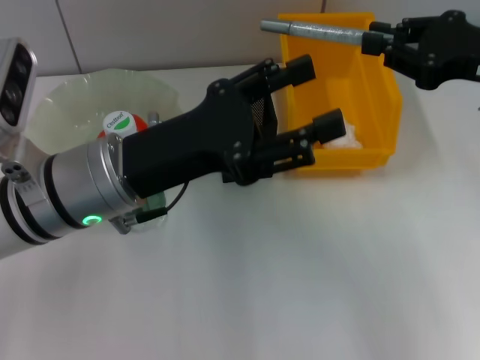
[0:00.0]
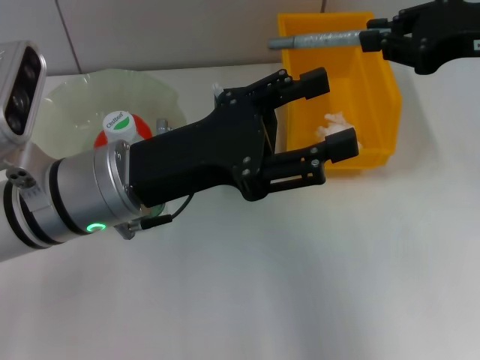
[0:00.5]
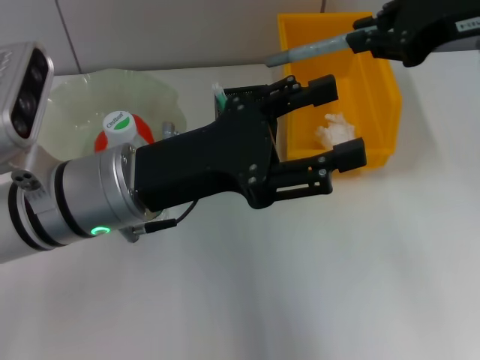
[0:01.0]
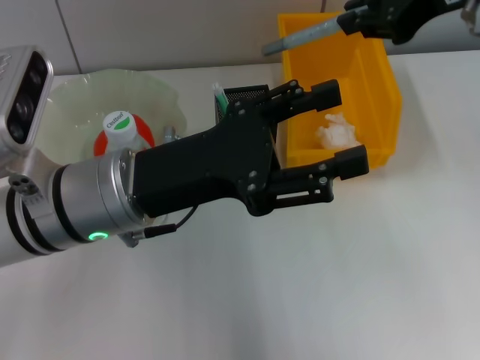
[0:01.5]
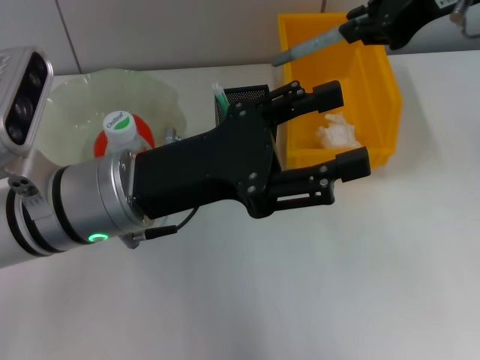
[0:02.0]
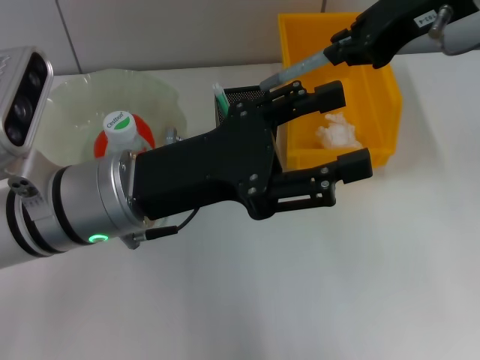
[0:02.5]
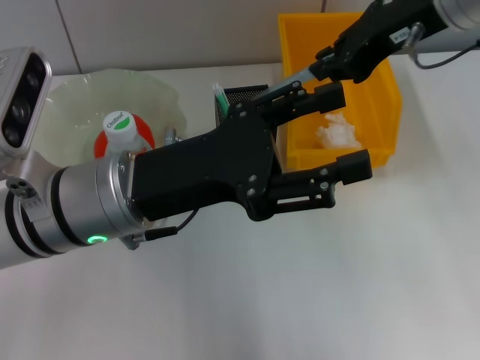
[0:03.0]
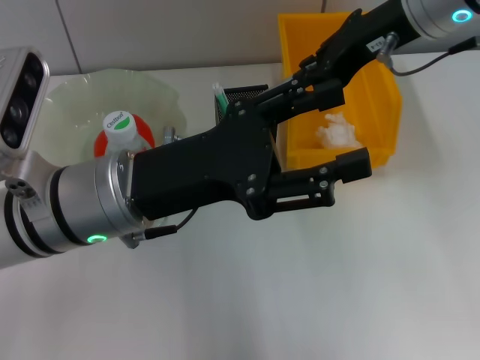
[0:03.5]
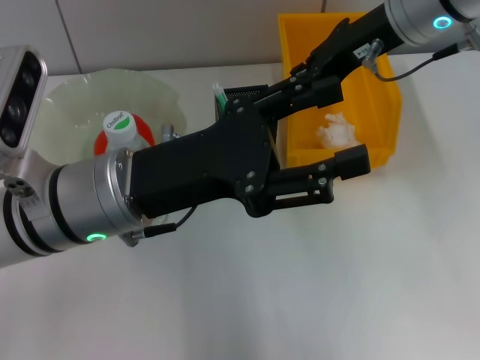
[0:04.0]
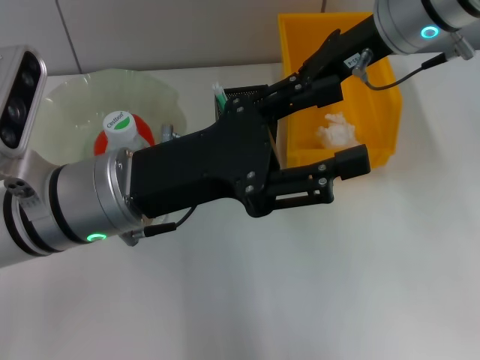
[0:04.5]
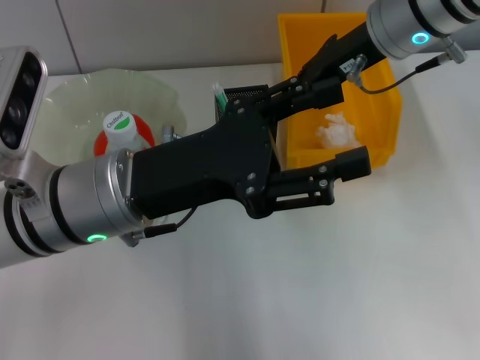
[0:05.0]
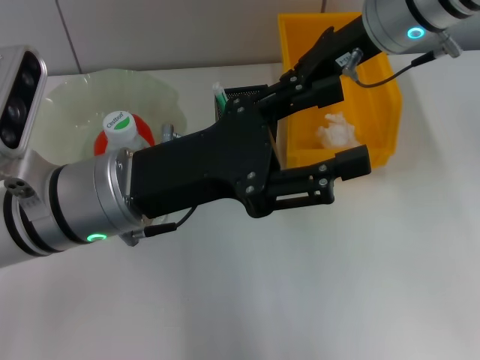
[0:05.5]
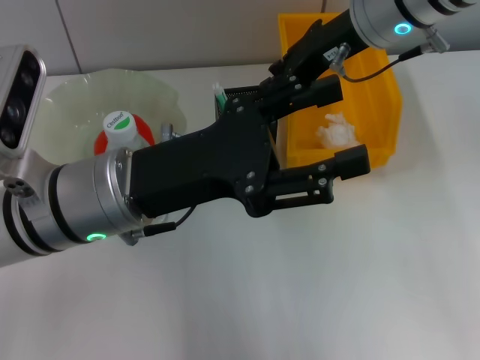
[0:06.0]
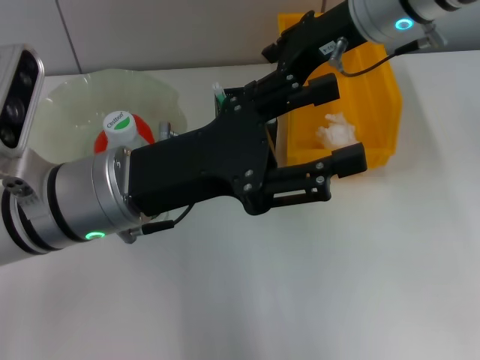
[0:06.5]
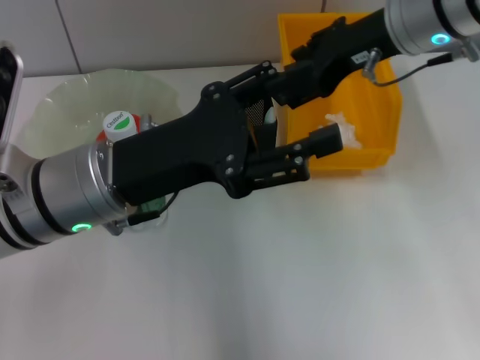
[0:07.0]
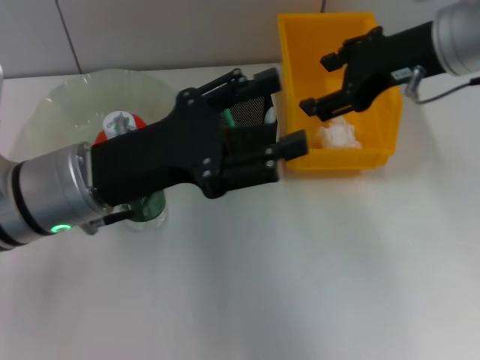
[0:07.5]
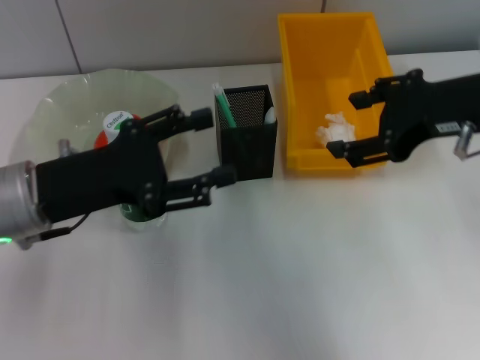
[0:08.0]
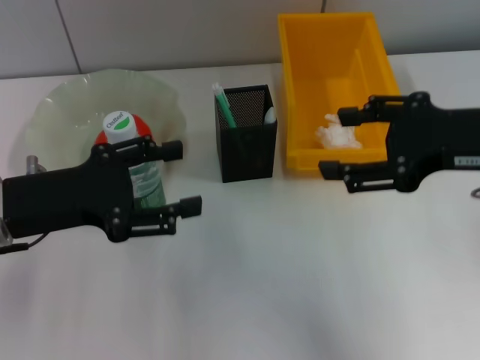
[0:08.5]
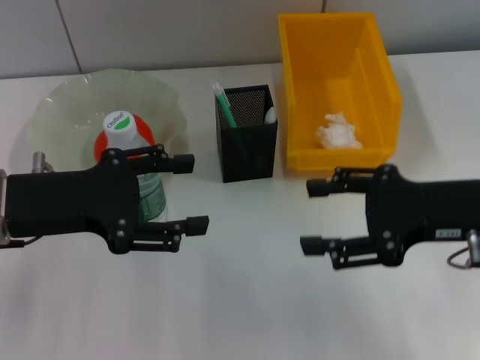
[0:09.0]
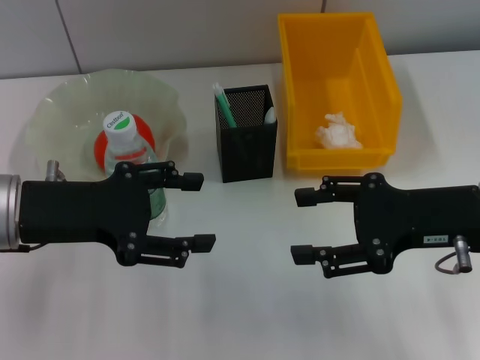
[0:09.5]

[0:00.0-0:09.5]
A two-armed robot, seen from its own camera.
Step, 0.0 to 5.0 s: Place the gray glue into the pen holder with the right hand.
0.0 to 2.0 s: The right gripper travels upward and to the left by roughly 15 cm.
2.0 to 4.0 s: The right gripper shifts approximately 5 cm downward.
4.0 to 5.5 s: The grippers make only small movements.
5.5 to 7.5 s: The right gripper travels backward by approximately 5 cm, and opens its fingers.
7.5 to 9.5 s: The left gripper heads to the left, covering some 5 cm, while the right gripper goes some 15 cm backward and downward.

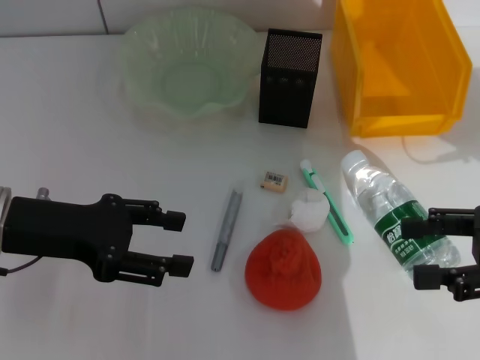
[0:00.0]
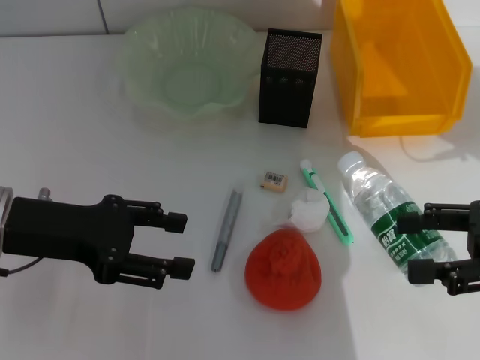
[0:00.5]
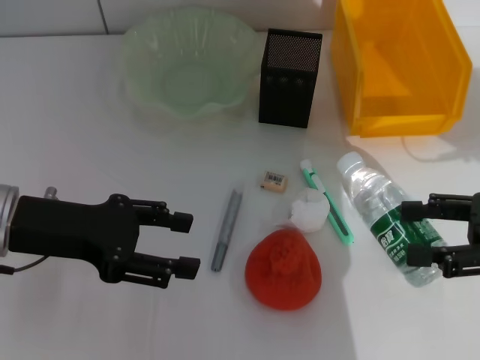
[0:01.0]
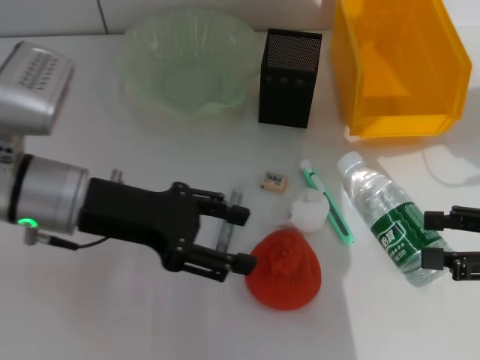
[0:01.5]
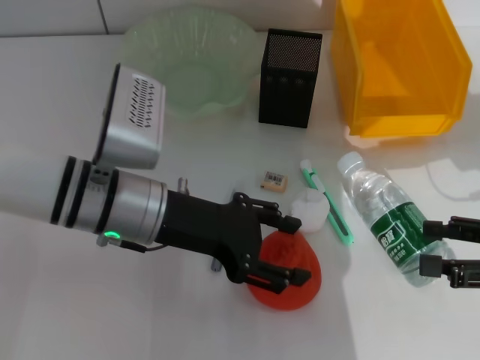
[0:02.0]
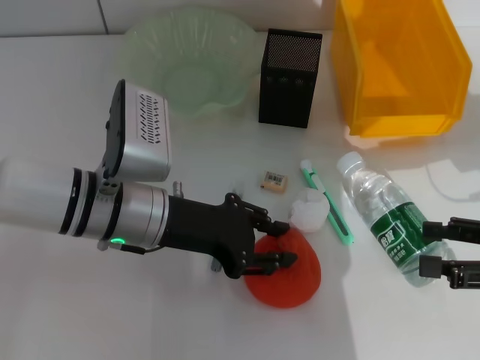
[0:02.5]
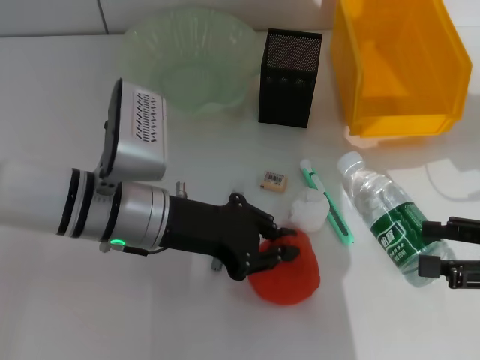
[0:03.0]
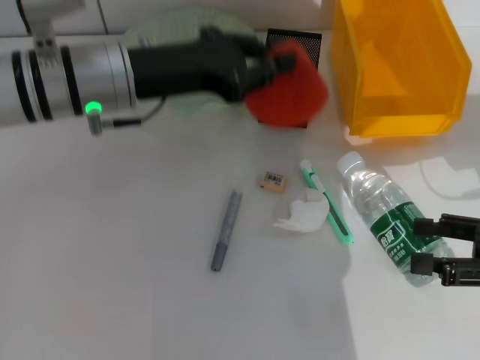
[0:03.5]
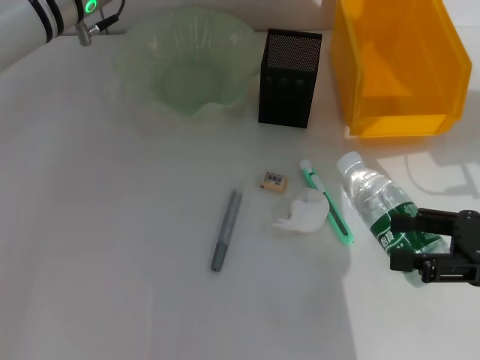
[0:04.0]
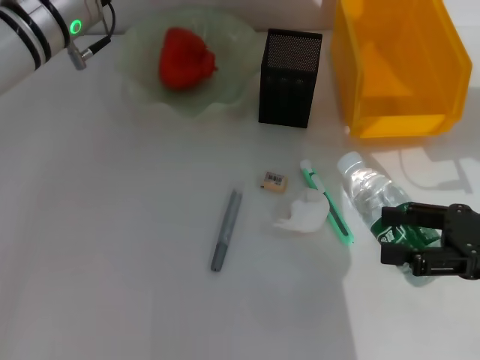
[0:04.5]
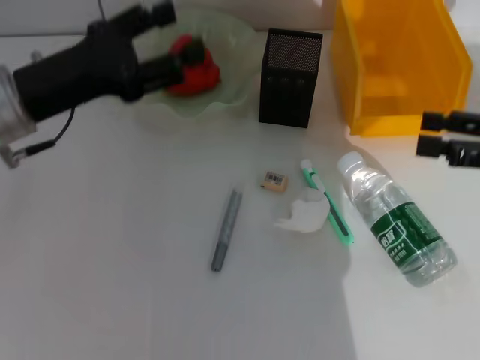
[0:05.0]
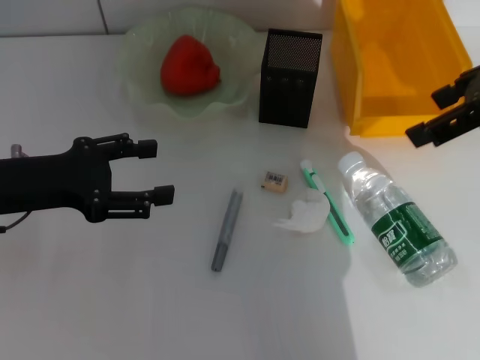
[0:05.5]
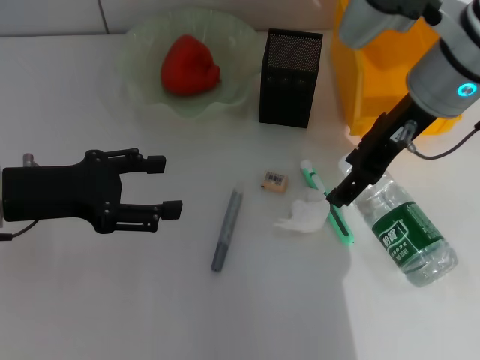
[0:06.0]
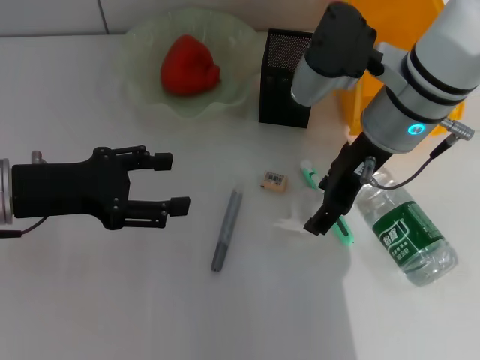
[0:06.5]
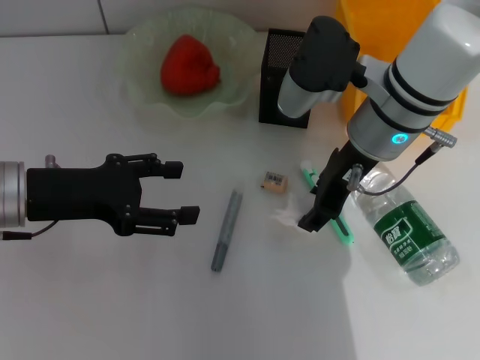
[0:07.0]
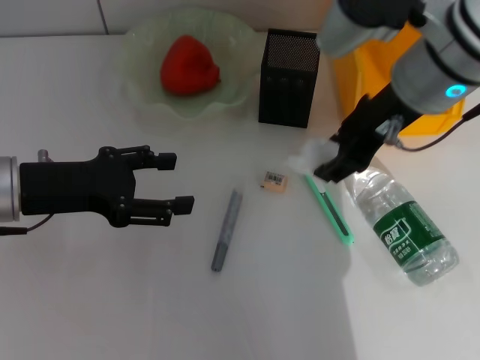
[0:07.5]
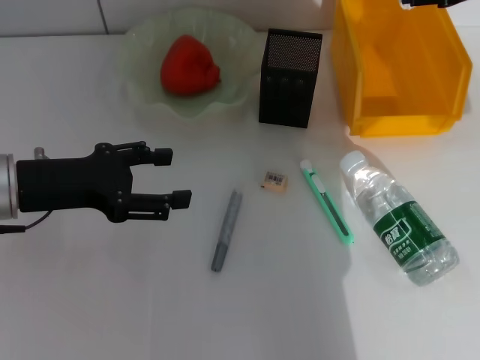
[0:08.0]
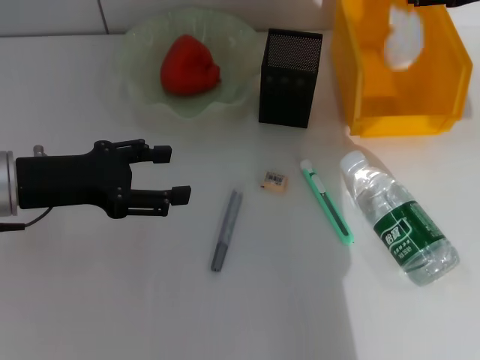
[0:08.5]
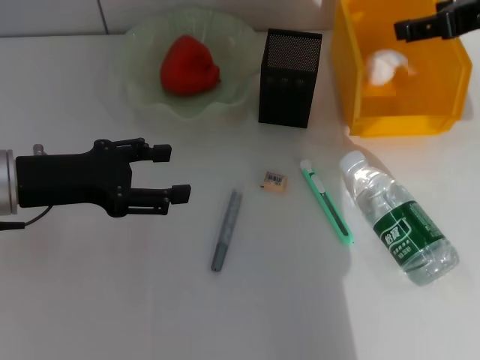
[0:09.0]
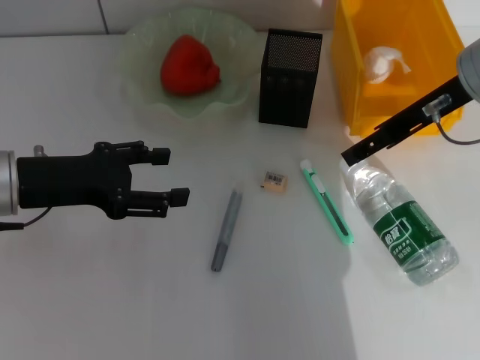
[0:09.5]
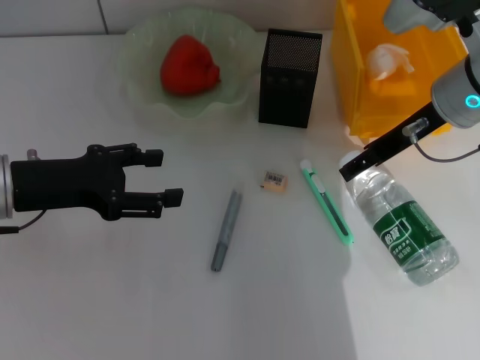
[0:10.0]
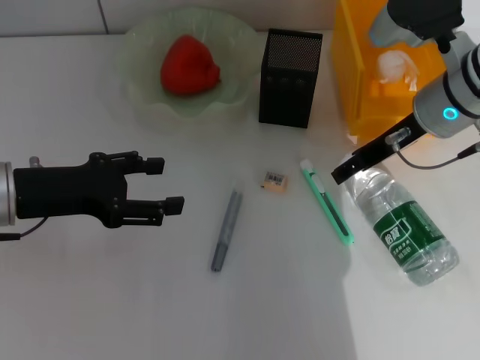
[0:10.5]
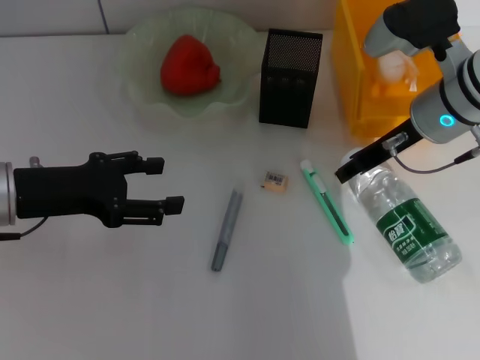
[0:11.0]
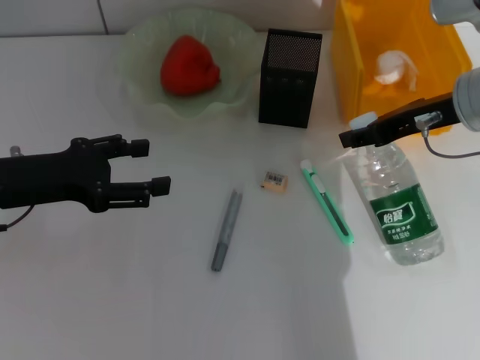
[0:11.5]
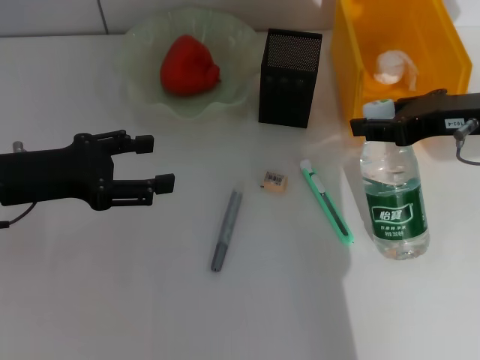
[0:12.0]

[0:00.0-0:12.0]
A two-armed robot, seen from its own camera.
Step, 0.0 to 2.5 s: Grab the orange with the left hand.
Step, 3.0 to 4.5 s: Place the orange into the fruit bowl with the left hand.
Step, 5.0 to 7.0 s: Grab the paper ball with the right hand.
Step, 7.5 to 8.5 s: Place the paper ball into the trash can with the right hand.
Step, 9.0 to 11.0 s: Grab the water bottle with the right hand.
0.0 to 2.0 s: The left gripper shifts some 10 cm to the right.
2.0 to 4.0 s: The left gripper goes about 15 cm forward and upward, and closes its fingers.
4.0 to 6.0 s: The right gripper travels to the left, forward and upward by about 25 cm, while the left gripper shifts some 20 cm backward, to the left and downward, and opens its fingers.
6.0 to 8.0 s: The right gripper is displaced to the right and upward by some 10 cm, and closes.
8.0 to 10.0 s: The right gripper moves downward and to the left, some 10 cm, and opens up.
10.0 to 12.0 s: The right gripper goes some 5 cm backward, and closes.

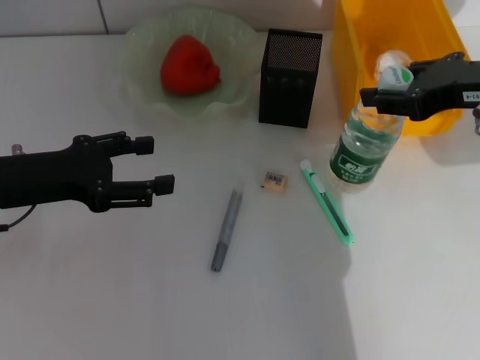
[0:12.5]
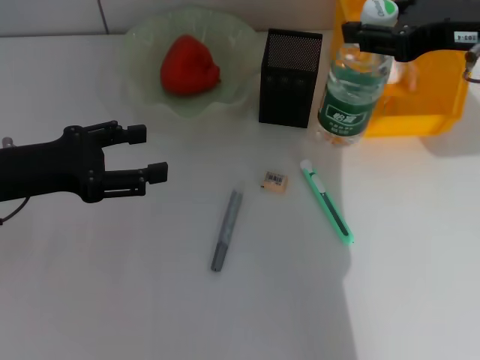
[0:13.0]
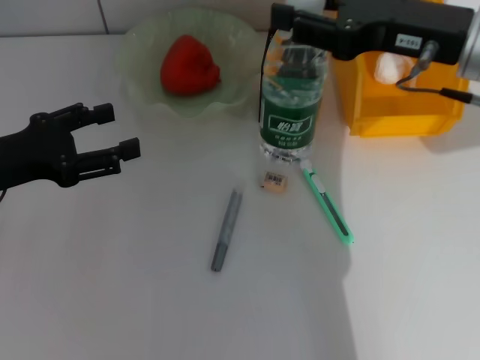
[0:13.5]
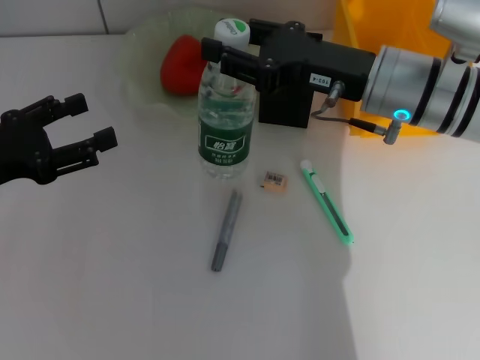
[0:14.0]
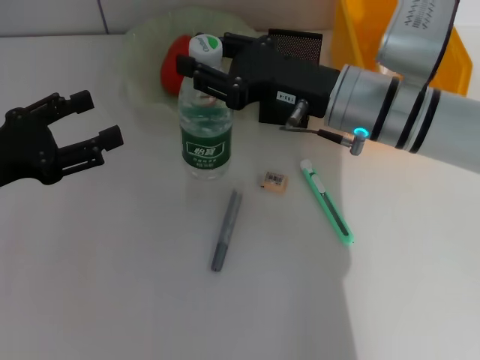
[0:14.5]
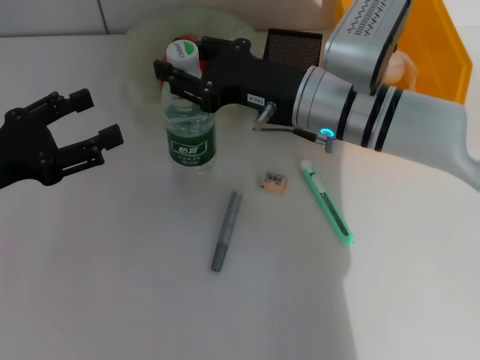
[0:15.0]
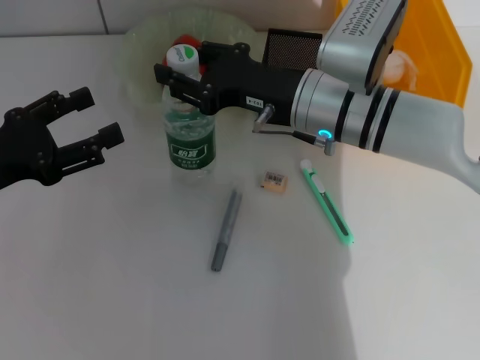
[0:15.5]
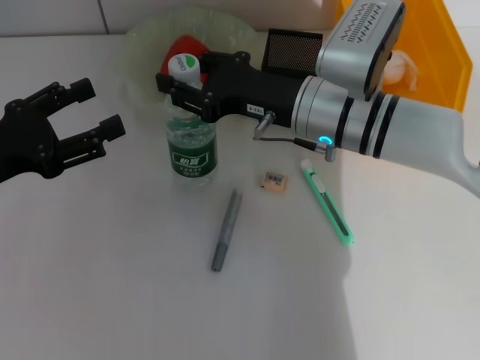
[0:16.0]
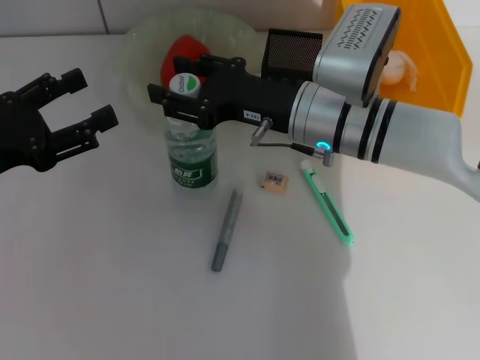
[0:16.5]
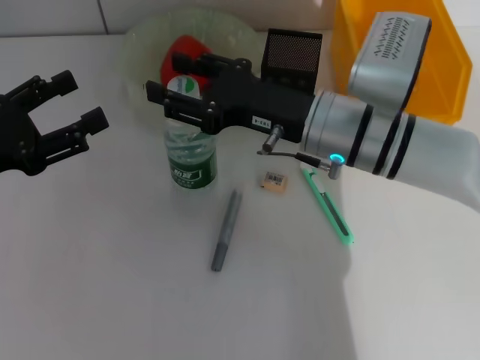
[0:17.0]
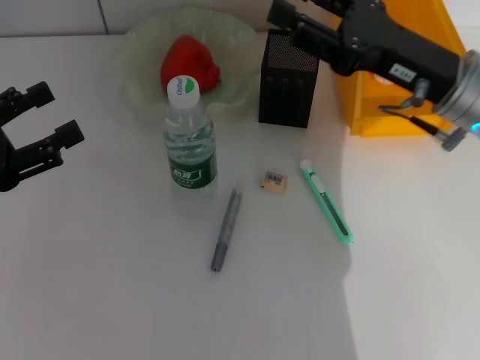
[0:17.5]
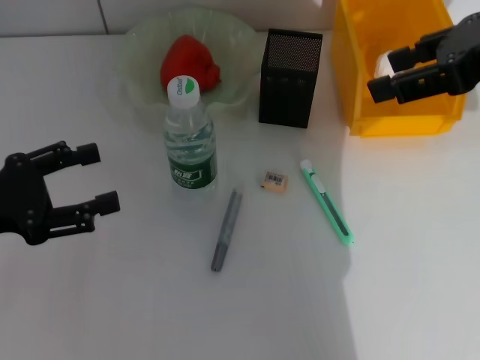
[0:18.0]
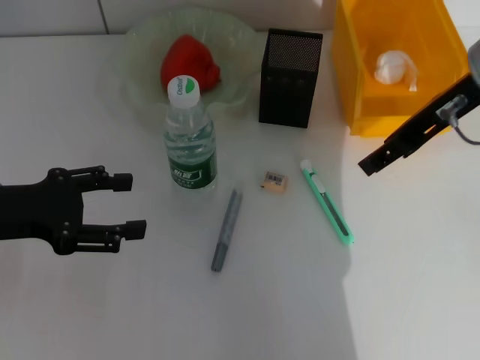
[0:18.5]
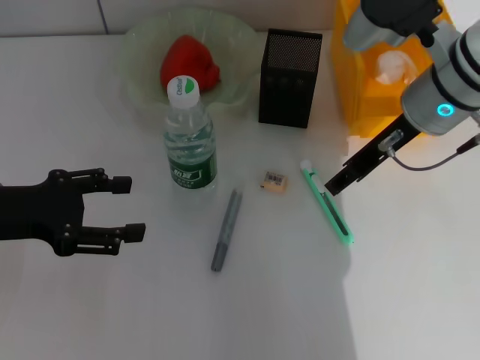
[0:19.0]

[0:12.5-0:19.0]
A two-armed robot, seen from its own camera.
Step, 12.5 to 16.5 s: Place the water bottle on the table with the right hand.
12.5 to 14.5 s: The right gripper goes roughly 15 cm to the left and downward.
14.5 to 17.0 s: The grippers stay close to where they were, moving slightly.
17.0 to 19.0 s: The right gripper is displaced to the right by approximately 5 cm, and travels upward and back again, some 20 cm each way.
